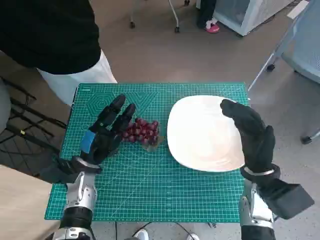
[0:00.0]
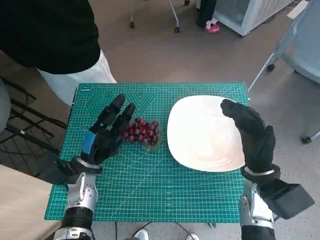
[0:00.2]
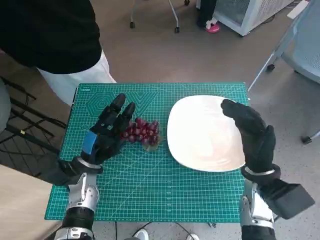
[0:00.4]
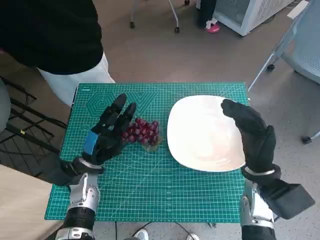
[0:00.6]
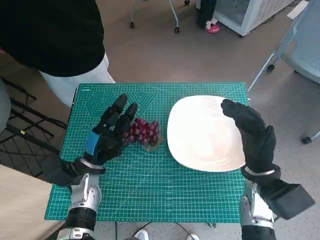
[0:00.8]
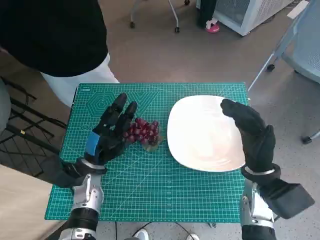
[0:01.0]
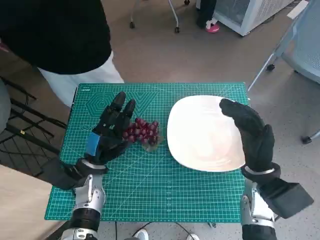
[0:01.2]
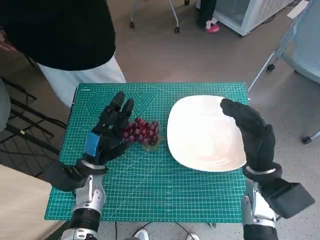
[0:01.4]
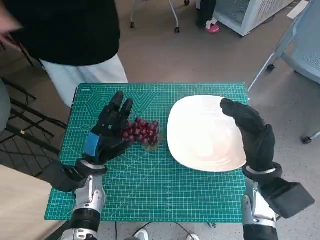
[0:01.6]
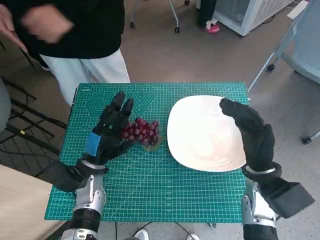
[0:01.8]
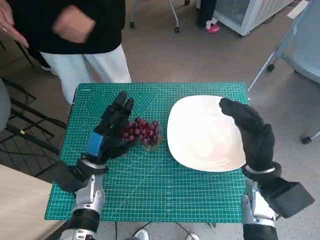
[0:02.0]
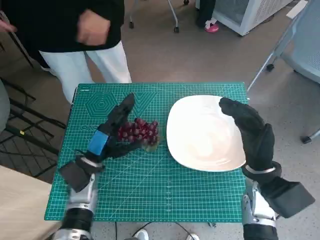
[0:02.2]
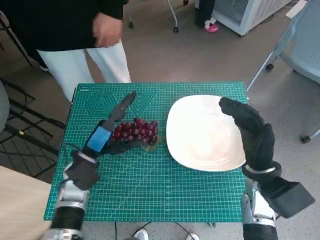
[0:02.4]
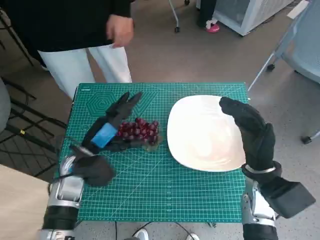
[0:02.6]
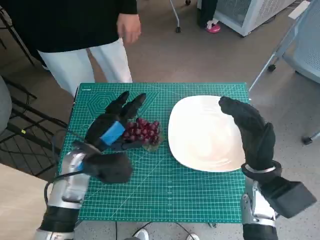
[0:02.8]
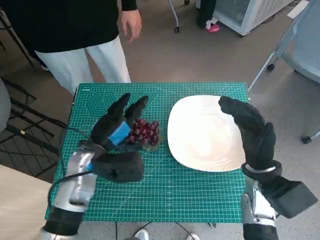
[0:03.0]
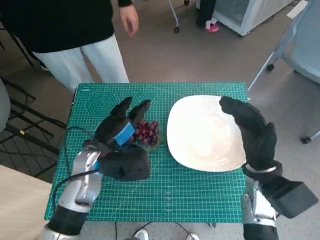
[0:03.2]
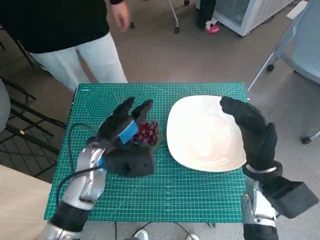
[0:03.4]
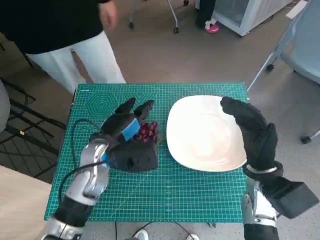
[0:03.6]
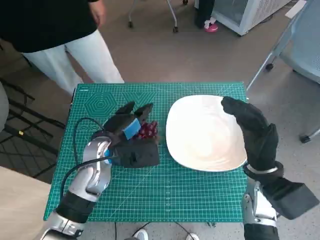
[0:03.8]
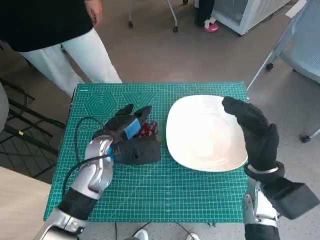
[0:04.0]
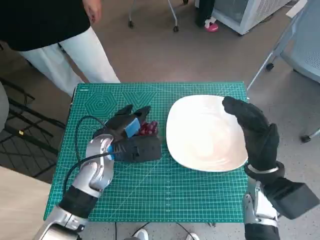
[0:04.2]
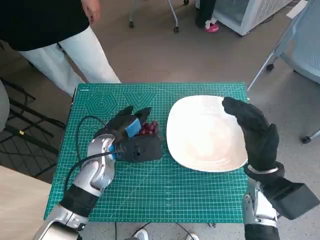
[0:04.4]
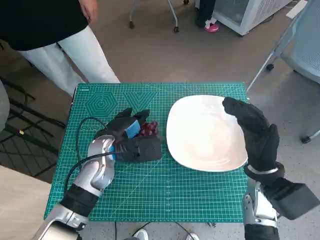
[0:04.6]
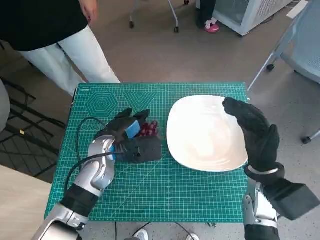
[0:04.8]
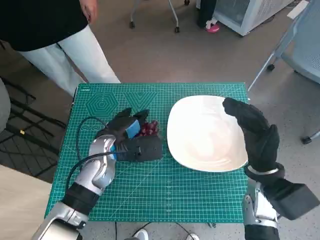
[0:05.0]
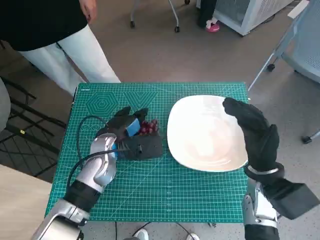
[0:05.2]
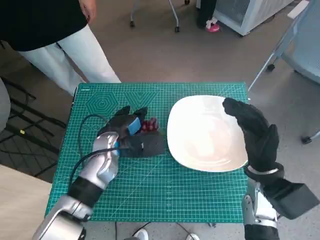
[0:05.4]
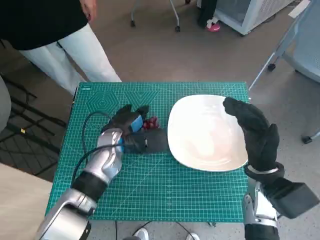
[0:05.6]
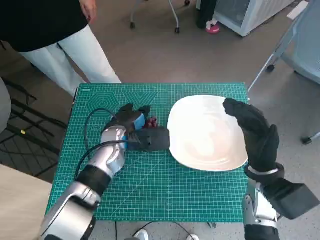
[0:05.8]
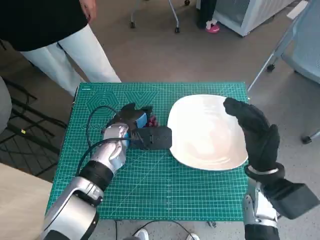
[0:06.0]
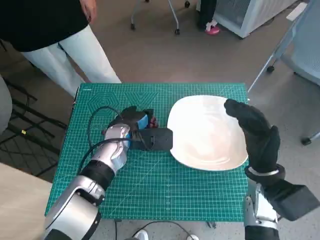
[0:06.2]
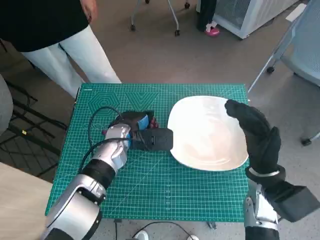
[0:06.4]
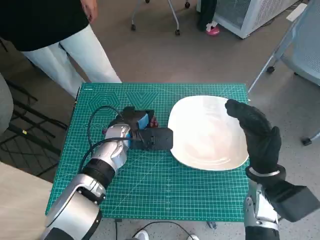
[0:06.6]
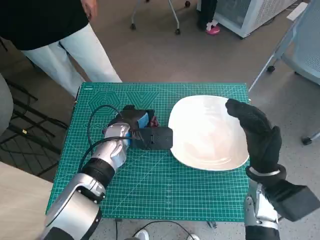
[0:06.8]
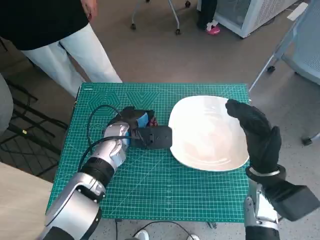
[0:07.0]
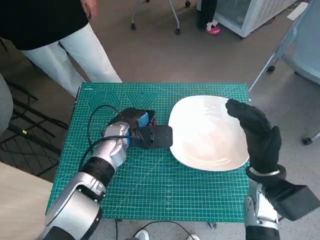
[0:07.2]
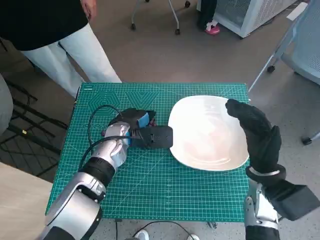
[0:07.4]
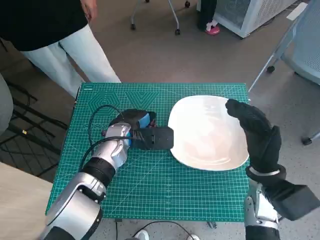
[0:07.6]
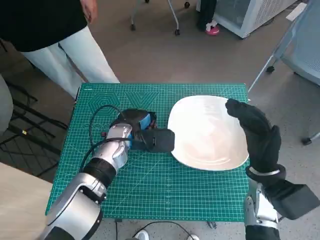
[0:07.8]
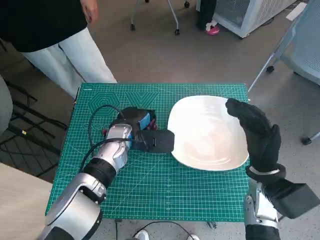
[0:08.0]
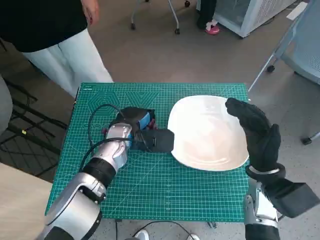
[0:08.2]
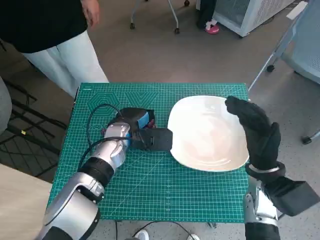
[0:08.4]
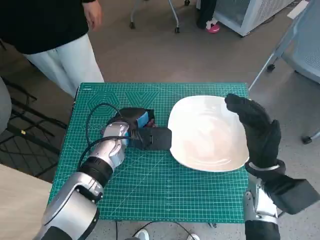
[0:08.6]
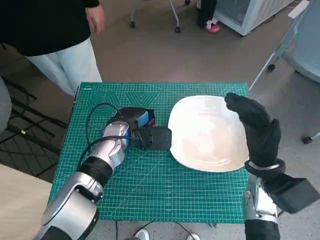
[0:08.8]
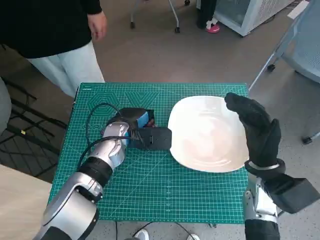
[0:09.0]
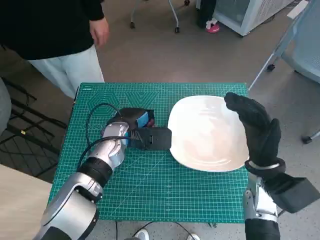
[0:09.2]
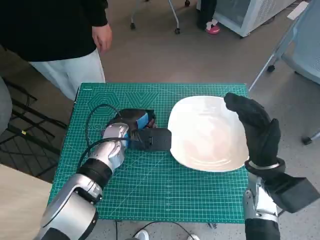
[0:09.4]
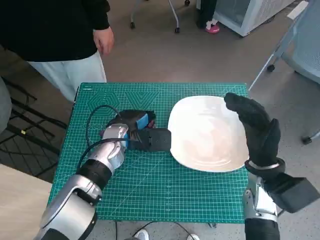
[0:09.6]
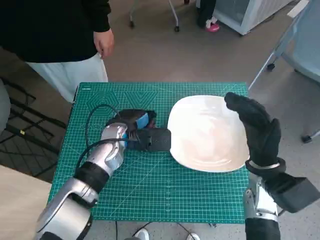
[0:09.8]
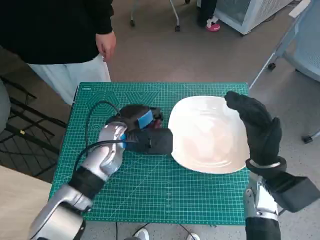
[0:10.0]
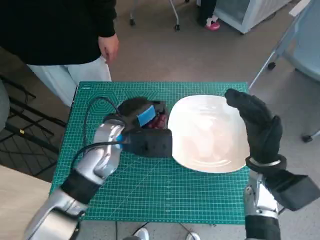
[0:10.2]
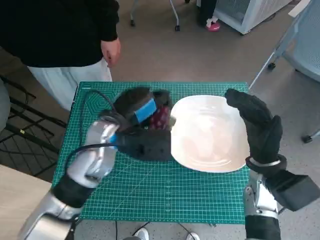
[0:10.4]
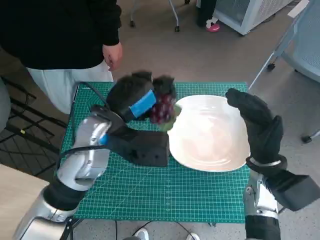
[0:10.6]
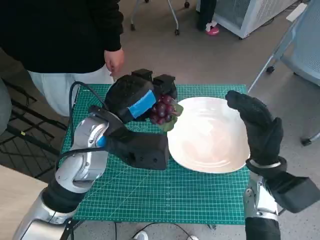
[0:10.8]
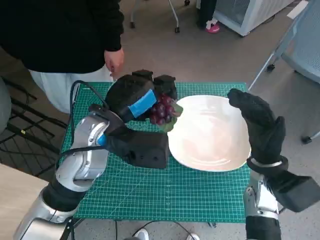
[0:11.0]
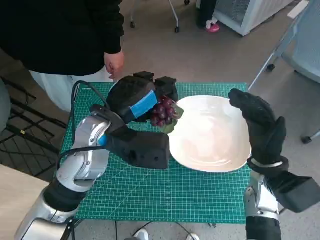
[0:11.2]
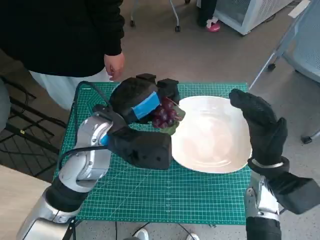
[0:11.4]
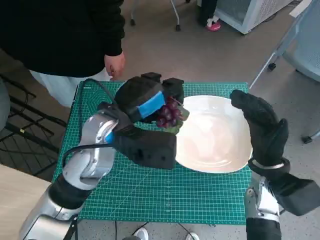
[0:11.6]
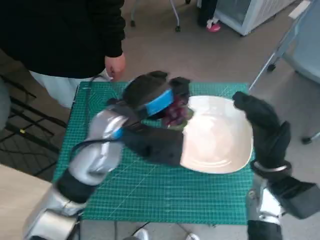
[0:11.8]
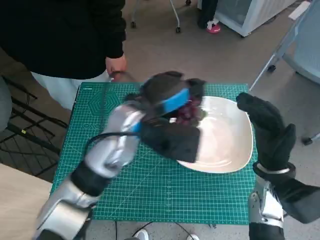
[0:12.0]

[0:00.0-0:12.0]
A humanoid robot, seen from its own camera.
Task of the whole recording: Pick up the grapes and put them on the plate.
Step, 0:00.0 to 0:06.6: Grasp the grapes with left hand.
0:01.6 to 0:03.0: The left hand moves upward, approximately 10 cm.
0:04.4 to 0:06.0: The hands stay close to where they were, moving slightly.
0:06.0 to 0:07.6: Both hands stay about where they are.
0:07.6 to 0:09.0: The hands stay close to where they were, moving slightly.
0:09.0 to 0:10.4: The left hand moves upward, some 5 cm.
0:10.4 to 0:12.0: The left hand is displaced upward by approximately 5 cm.

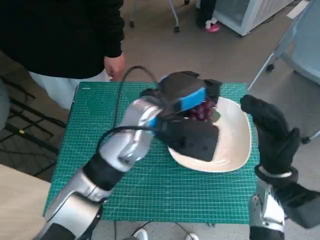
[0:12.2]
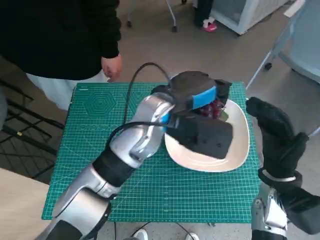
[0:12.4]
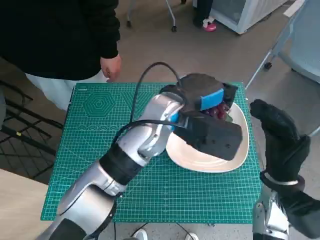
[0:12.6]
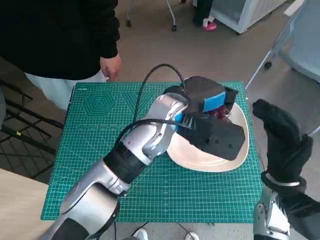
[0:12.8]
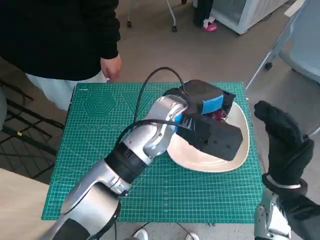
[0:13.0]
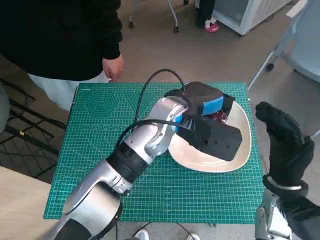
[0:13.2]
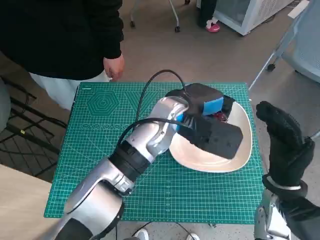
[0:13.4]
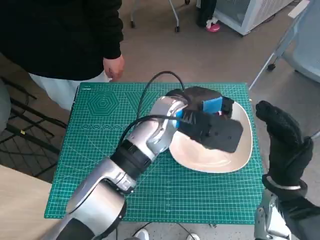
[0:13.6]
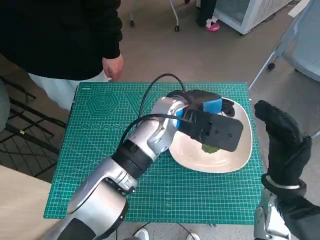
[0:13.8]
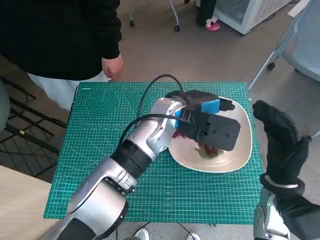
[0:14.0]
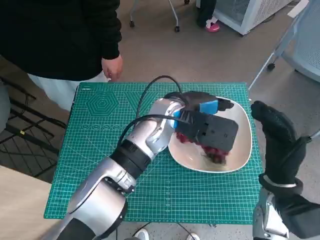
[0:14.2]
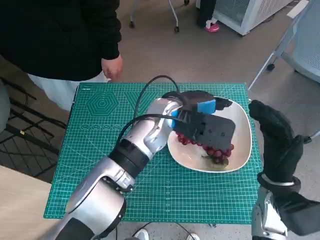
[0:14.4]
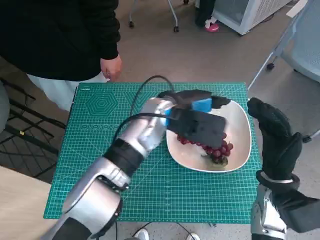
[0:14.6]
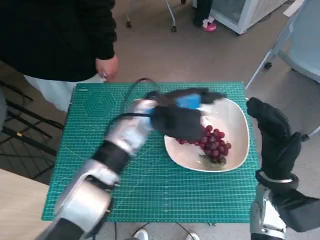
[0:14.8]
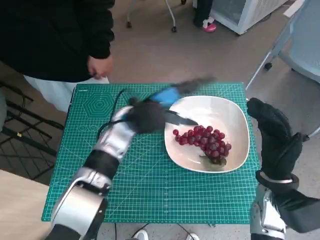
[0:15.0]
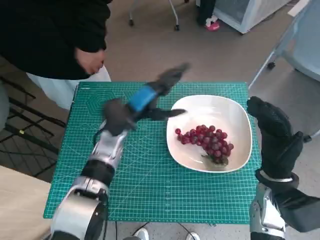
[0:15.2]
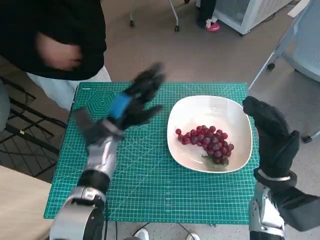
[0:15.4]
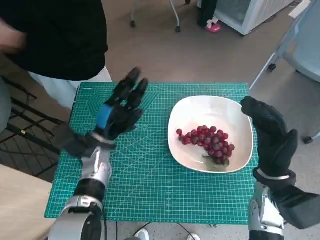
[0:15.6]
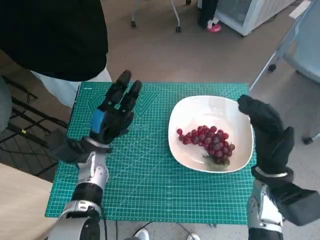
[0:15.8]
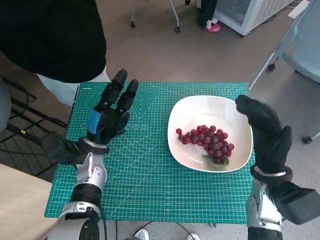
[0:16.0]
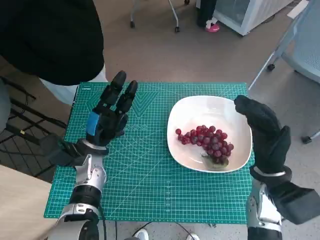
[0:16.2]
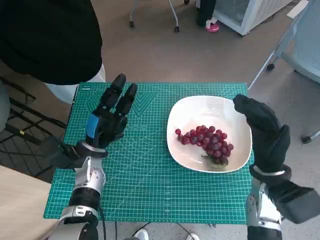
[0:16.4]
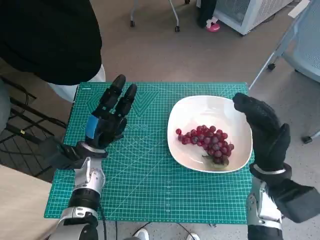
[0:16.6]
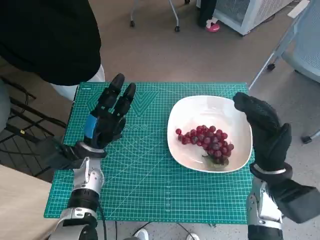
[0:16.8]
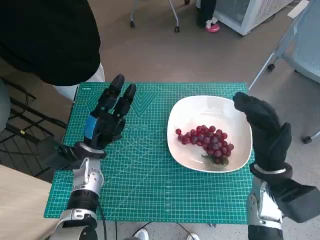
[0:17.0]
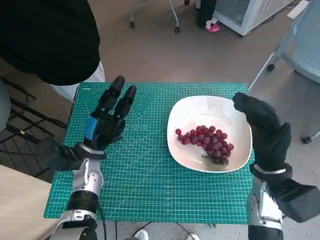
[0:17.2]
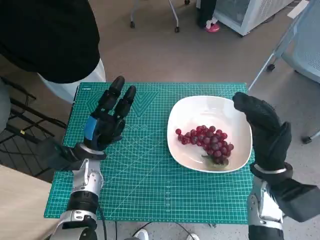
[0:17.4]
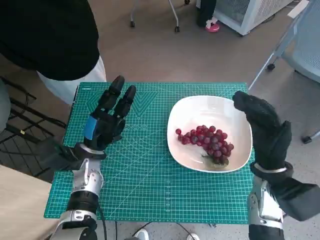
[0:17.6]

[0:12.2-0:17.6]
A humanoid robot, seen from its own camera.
Task of the whole recording: Pick up the grapes and put them on the plate.
Step, 0:12.2 to 0:14.2: Place the grapes in the plate with left hand.
0:12.2 to 0:13.6: The left hand changes place by some 5 cm.
0:13.6 to 0:15.0: The left hand goes approximately 5 cm to the left.
0:15.0 to 0:16.2: The left hand heads to the left and downward, covering roughly 15 cm.
0:16.2 to 0:17.6: Neither hand changes place.

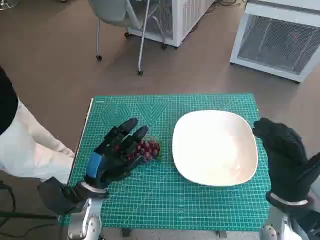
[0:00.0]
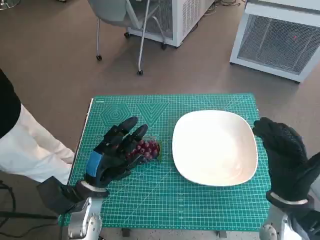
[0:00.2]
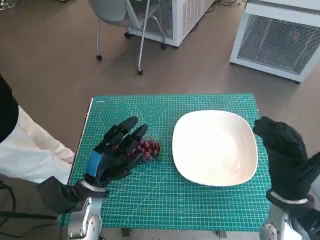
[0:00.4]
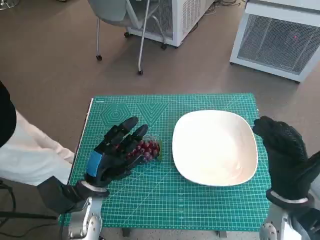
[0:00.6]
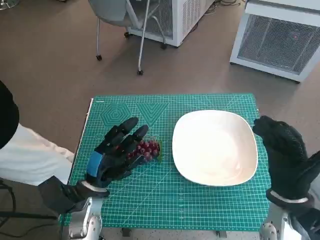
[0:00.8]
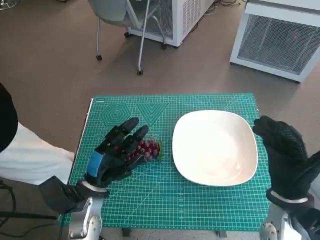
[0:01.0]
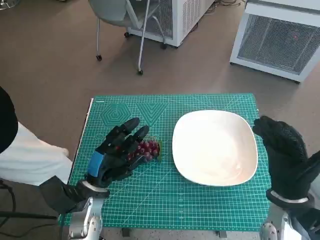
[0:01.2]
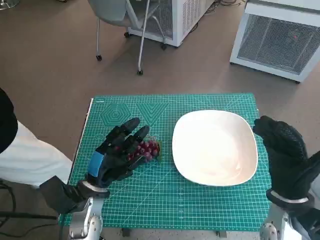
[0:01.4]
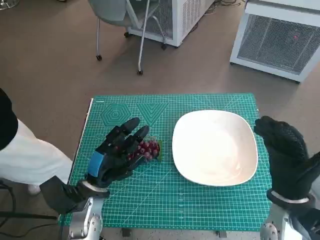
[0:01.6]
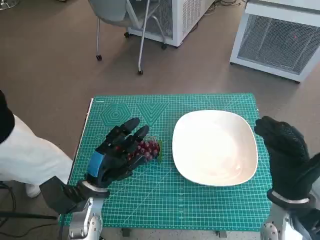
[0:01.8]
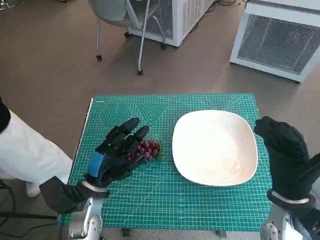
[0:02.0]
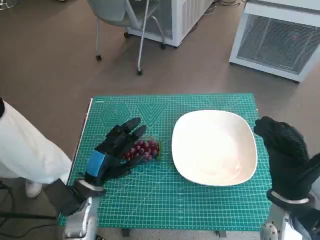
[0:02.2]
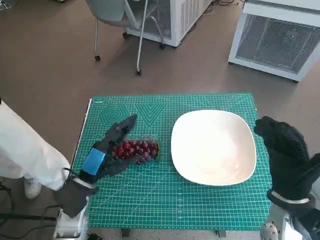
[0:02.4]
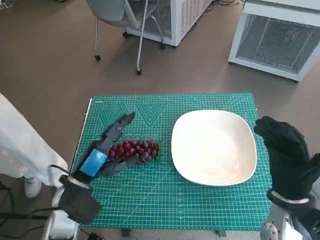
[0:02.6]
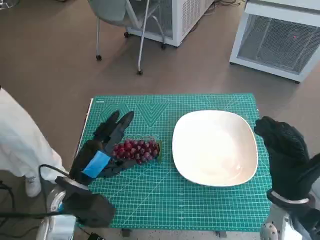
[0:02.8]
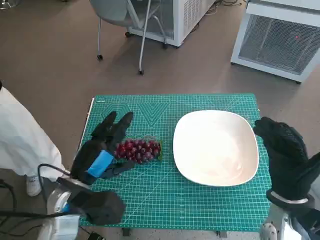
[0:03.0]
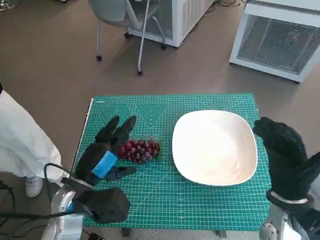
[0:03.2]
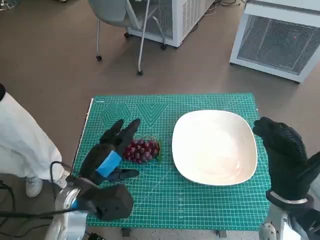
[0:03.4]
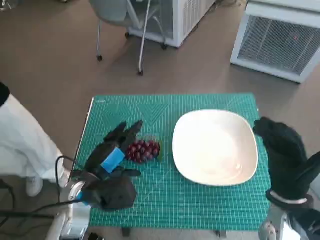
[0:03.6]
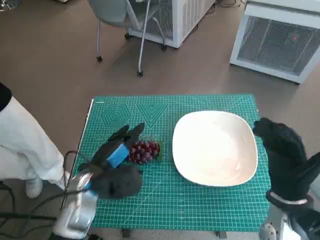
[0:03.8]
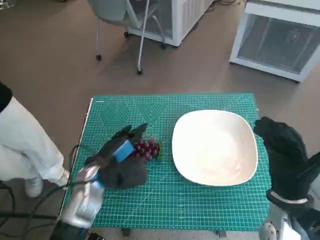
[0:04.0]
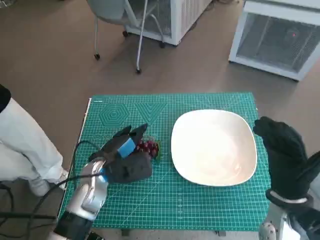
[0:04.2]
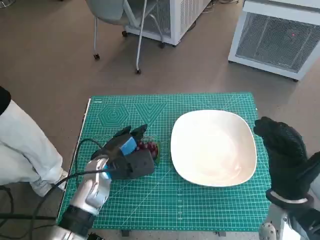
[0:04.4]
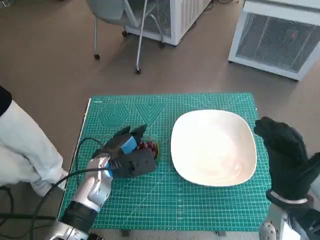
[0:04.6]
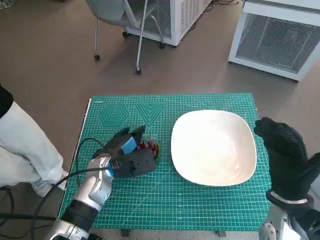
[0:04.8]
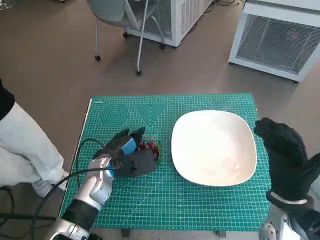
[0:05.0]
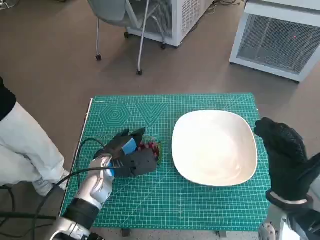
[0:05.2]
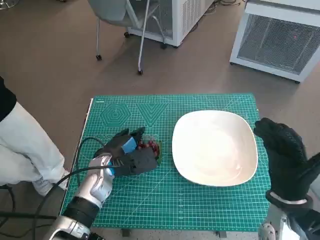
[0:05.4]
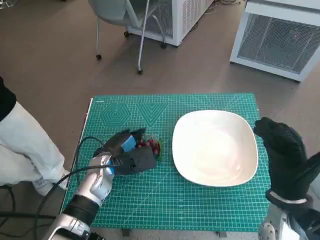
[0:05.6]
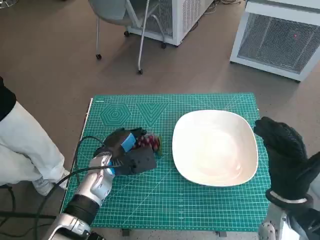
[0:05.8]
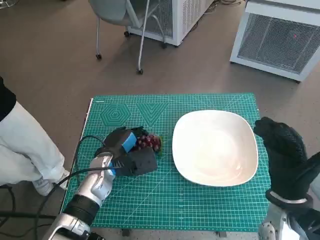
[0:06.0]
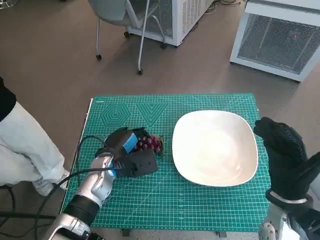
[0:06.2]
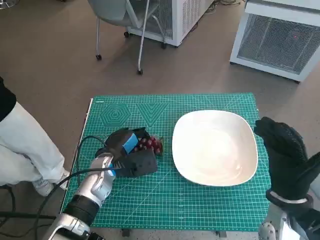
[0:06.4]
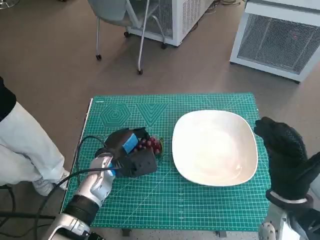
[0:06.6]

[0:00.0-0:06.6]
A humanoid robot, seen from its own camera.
Task of the whole recording: Pick up the grapes and put them on the plate.
0:01.6 to 0:03.2: The left hand shifts approximately 5 cm upward.
0:03.2 to 0:05.0: The left hand shifts roughly 10 cm forward.
0:05.0 to 0:06.6: The hands make only small movements.
